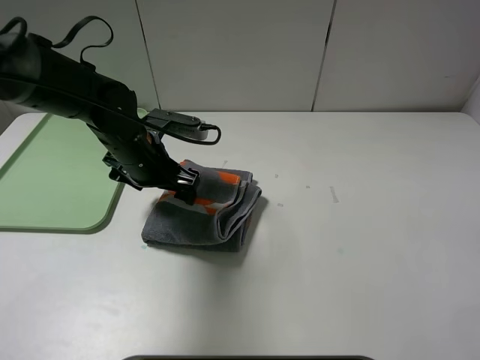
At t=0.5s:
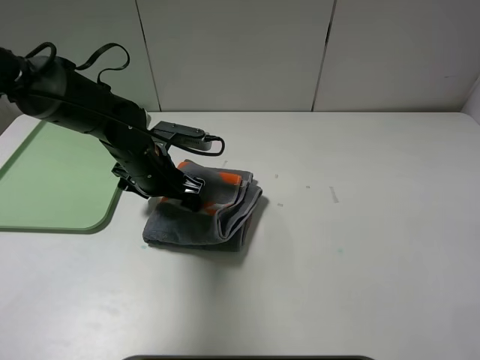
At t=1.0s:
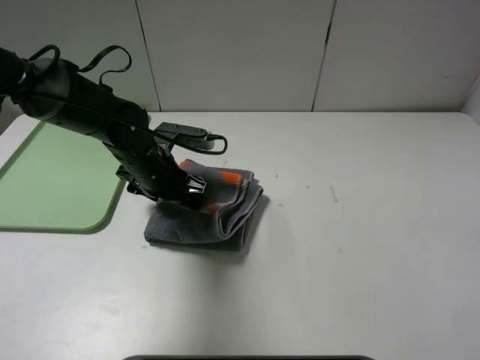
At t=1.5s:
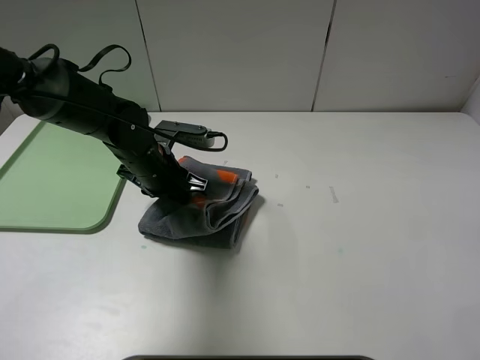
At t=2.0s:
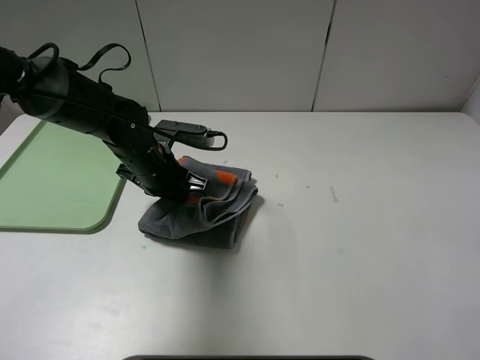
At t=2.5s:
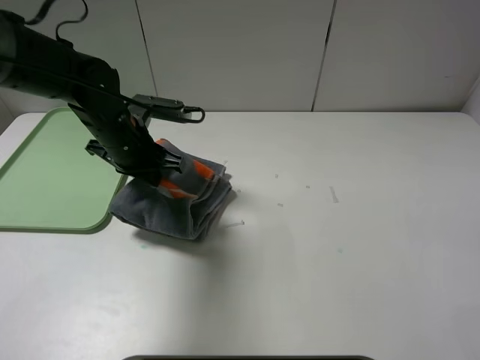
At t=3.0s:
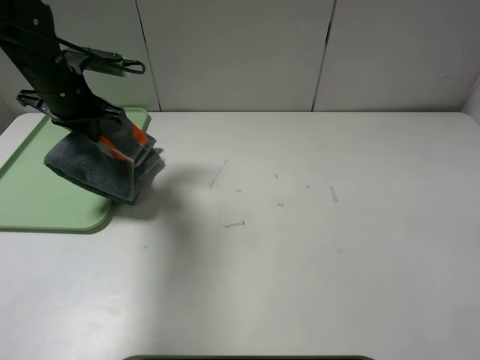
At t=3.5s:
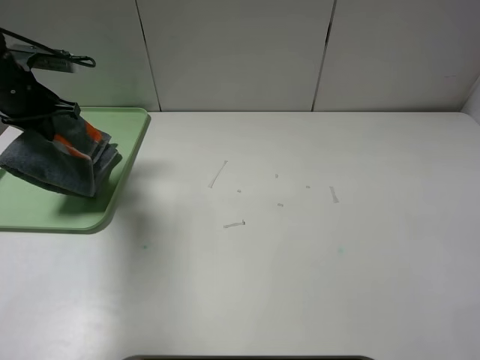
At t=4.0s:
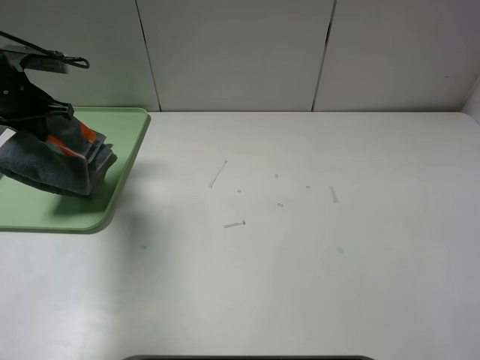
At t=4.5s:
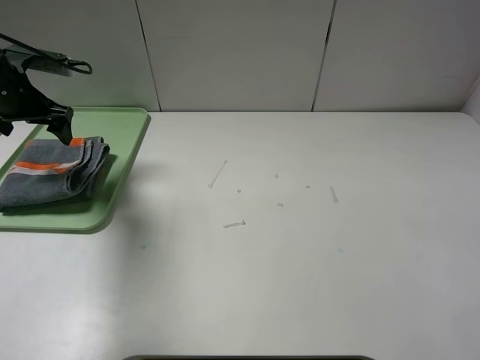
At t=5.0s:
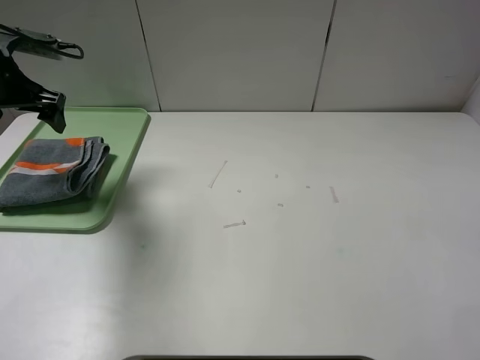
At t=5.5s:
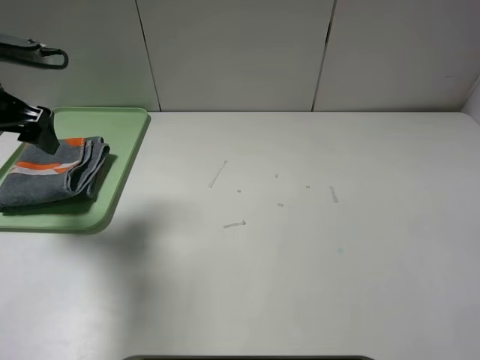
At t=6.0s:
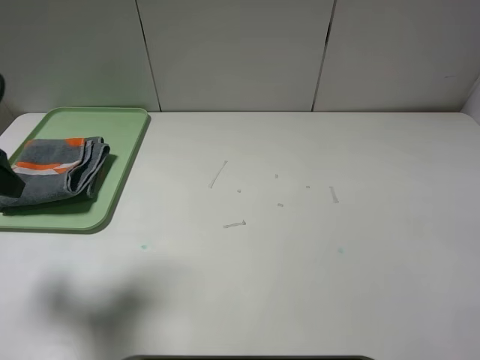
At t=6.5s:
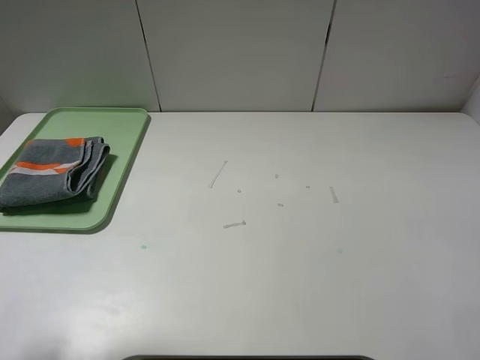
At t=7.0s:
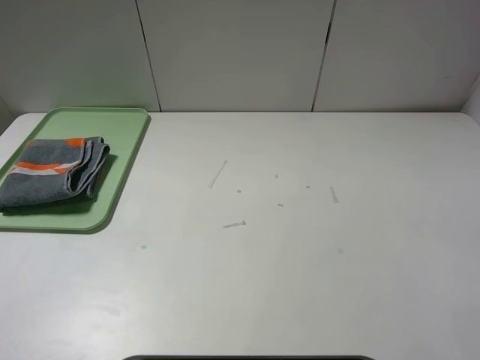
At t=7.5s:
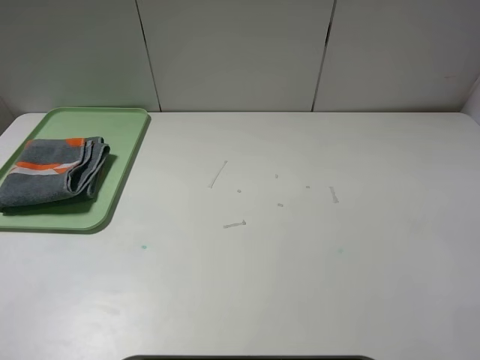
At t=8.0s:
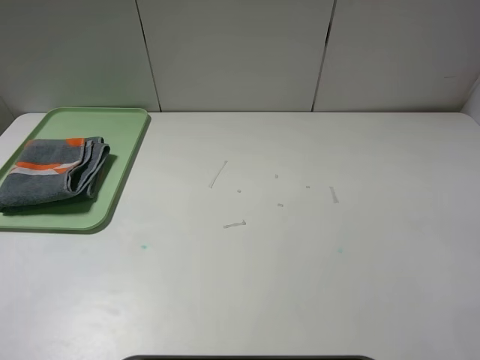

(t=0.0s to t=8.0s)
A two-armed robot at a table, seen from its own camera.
Step, t=0.0s - t=4.0s: Place the folded grey towel on the tray with the left gripper.
t=0.0s - t=2.0s: The left gripper closes up.
t=2.0s - t=4.0s: The left gripper travels to the left and upward by approximately 25 cm.
t=4.0s - t=6.0s: The left gripper goes approximately 20 cm backward, and opens its fingers.
t=6.0s - t=8.0s: The left gripper travels backward by some 20 cm.
